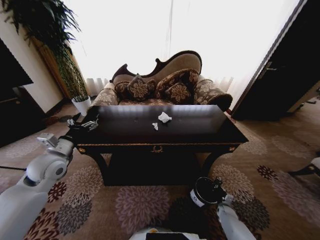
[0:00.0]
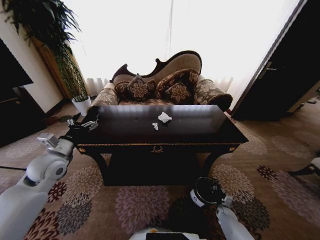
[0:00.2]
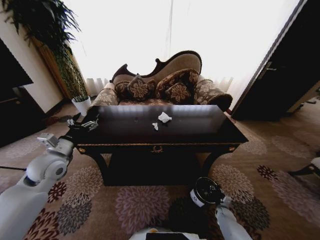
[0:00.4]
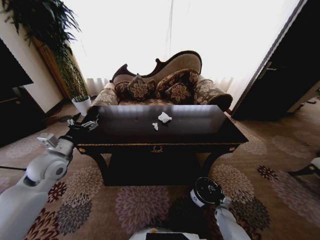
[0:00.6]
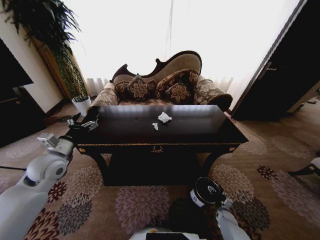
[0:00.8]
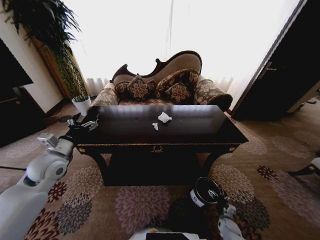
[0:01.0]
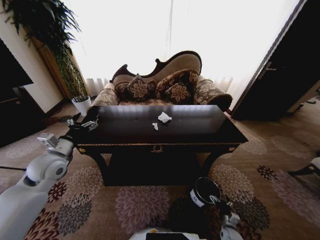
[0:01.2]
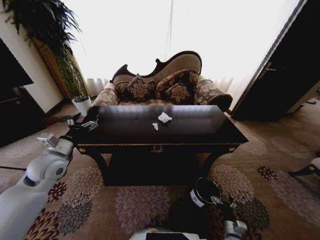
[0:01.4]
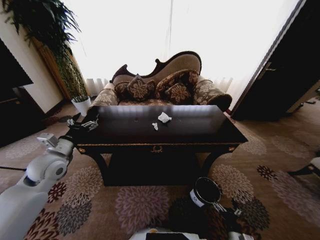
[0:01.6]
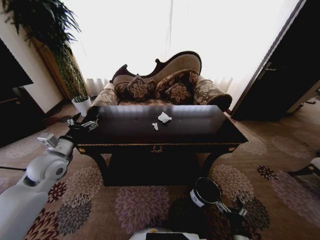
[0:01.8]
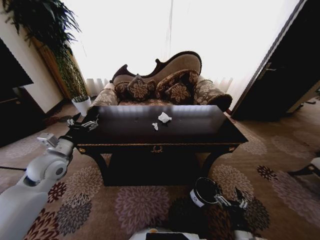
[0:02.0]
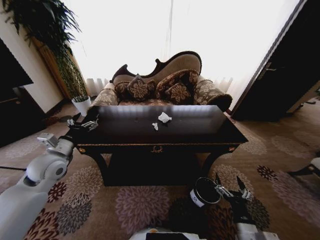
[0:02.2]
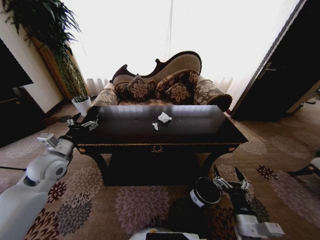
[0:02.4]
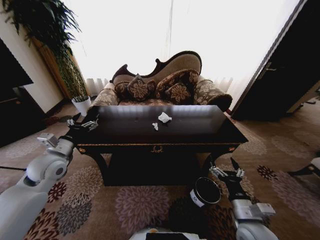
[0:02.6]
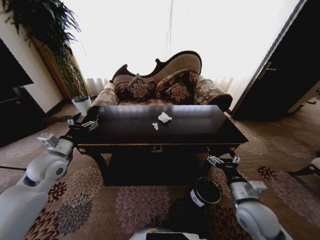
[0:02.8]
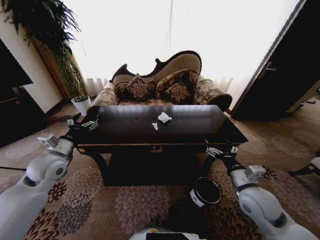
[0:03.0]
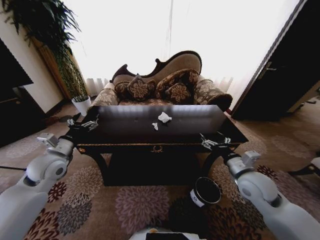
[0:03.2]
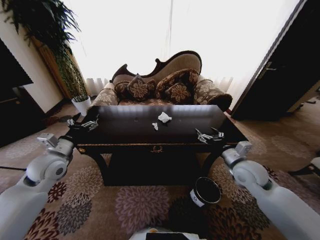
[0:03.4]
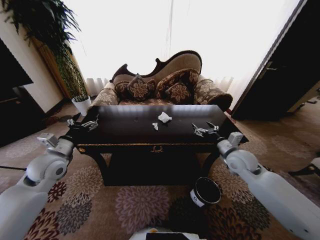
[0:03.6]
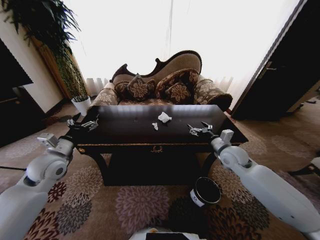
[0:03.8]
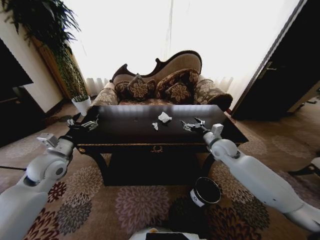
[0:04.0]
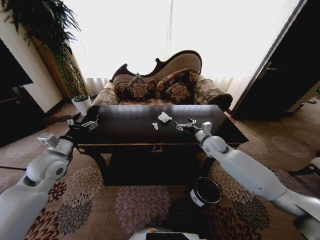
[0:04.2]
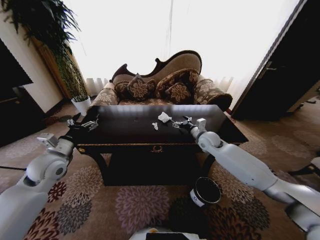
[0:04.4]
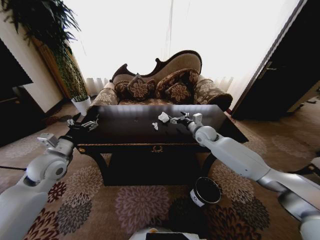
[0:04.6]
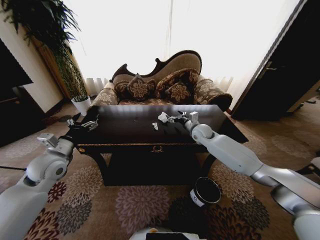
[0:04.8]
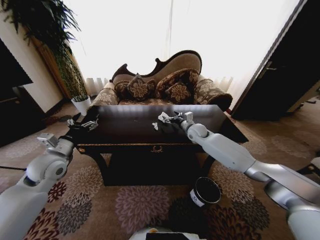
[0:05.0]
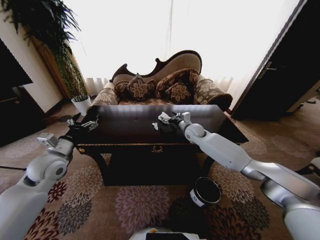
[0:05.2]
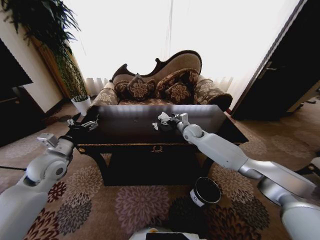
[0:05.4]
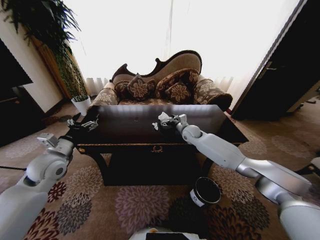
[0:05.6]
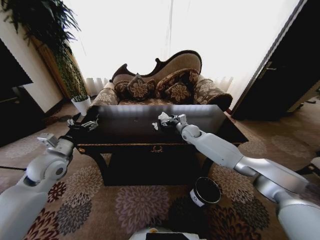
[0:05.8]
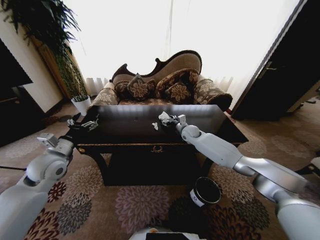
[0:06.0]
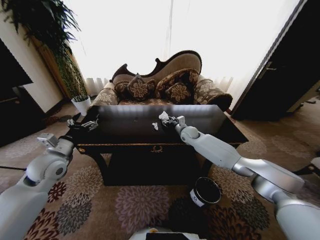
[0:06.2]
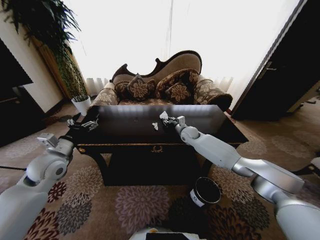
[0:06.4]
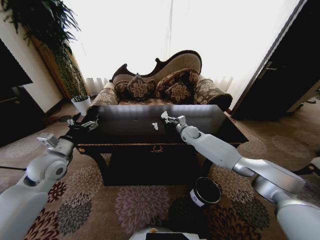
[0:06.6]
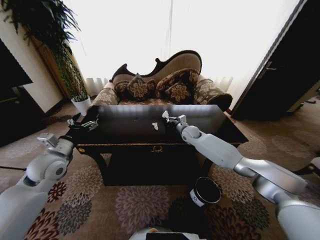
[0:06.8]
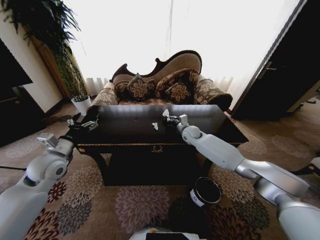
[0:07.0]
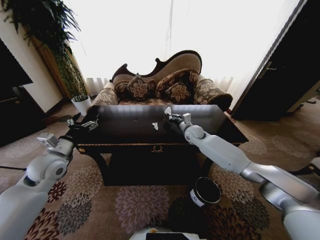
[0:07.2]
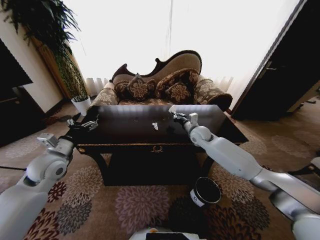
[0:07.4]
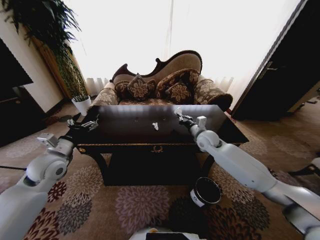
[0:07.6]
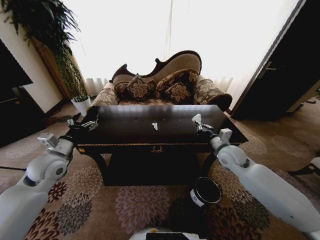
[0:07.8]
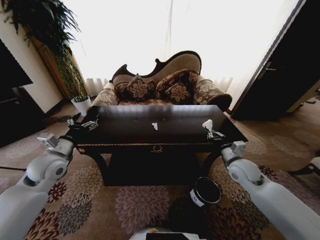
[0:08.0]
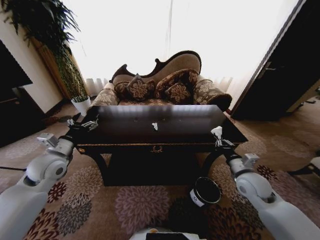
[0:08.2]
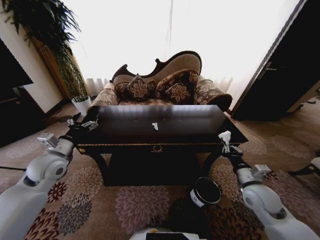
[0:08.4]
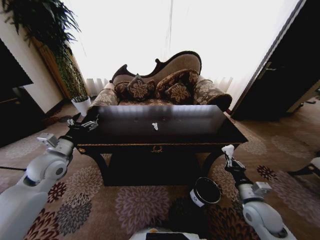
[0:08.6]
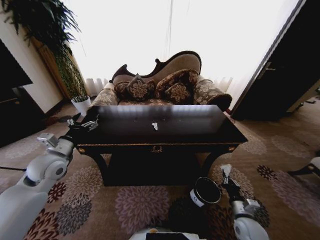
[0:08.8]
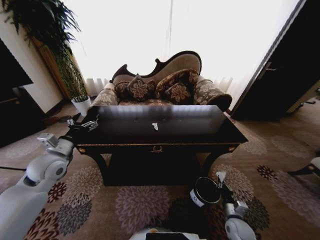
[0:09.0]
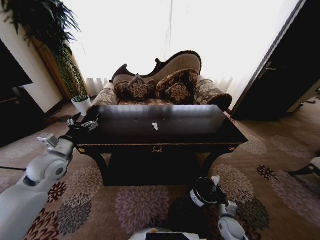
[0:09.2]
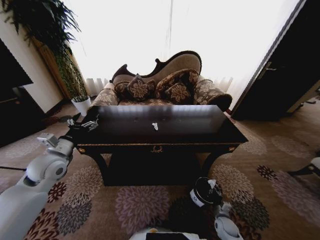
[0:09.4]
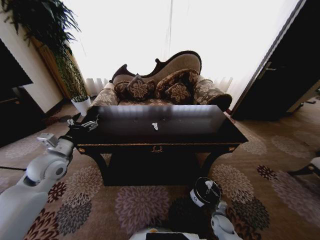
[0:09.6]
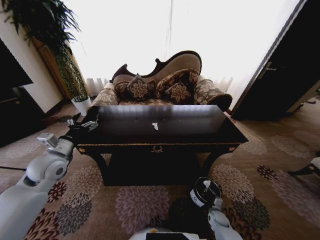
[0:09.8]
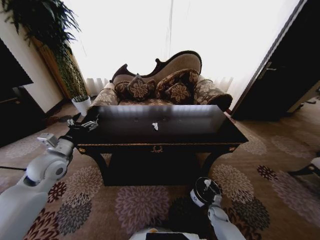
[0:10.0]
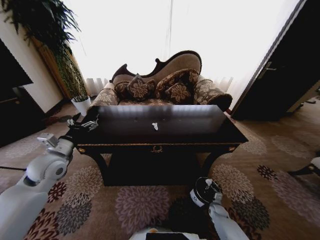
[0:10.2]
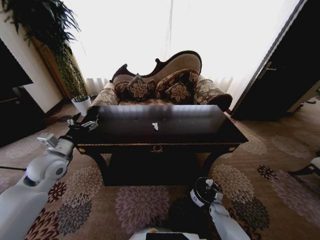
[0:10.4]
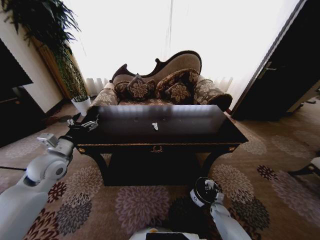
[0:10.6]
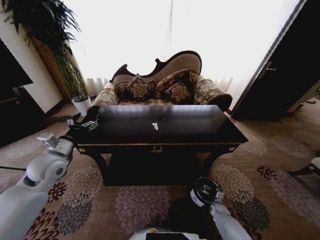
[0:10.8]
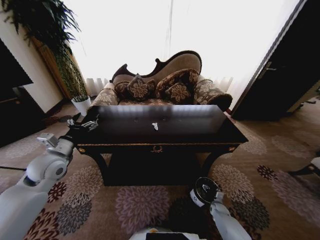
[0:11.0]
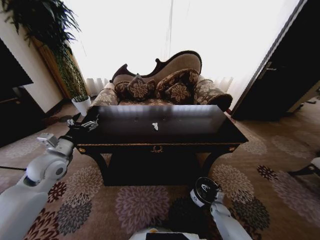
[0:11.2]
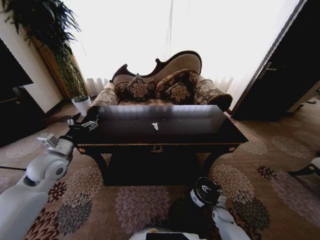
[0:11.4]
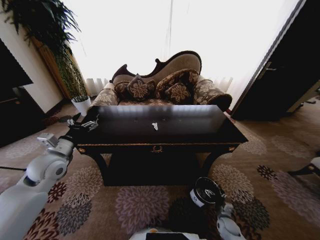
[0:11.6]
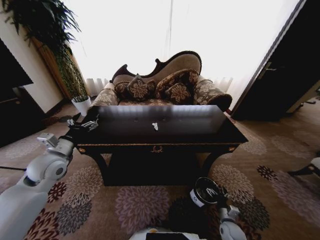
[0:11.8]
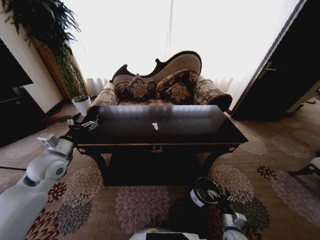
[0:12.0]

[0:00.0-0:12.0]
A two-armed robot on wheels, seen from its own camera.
Task of the whole recording: Move to the front of the table and place the trash on the table into the trash bin.
0:00.0 to 0:01.6: The right gripper heads backward, upward and to the left, covering some 25 cm, and opens up.
0:01.6 to 0:03.0: The right gripper shifts roughly 35 cm upward and forward.
0:03.0 to 0:04.4: The right gripper goes approximately 25 cm forward.
0:04.4 to 0:06.0: The right gripper is displaced forward and to the left by approximately 10 cm.
0:06.0 to 0:07.6: The right gripper moves backward, some 10 cm, and closes up.
0:07.6 to 0:09.0: The right gripper moves backward and downward, some 40 cm.
0:09.0 to 0:10.4: The right gripper travels downward and forward by some 20 cm.
0:10.4 to 0:12.0: The right gripper moves backward and upward, roughly 20 cm, and opens.

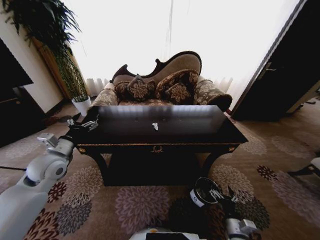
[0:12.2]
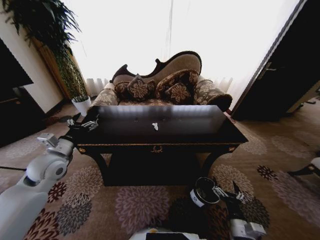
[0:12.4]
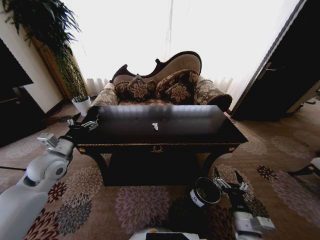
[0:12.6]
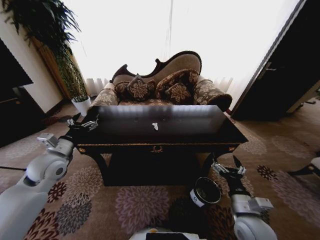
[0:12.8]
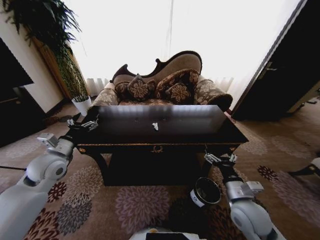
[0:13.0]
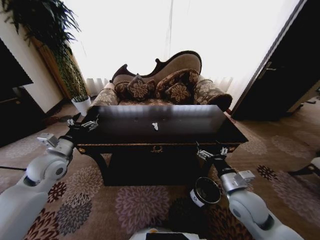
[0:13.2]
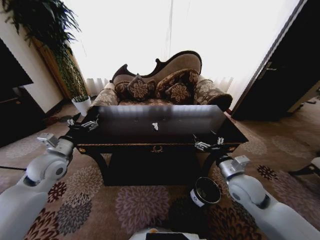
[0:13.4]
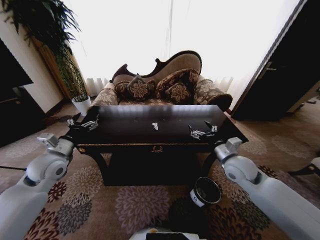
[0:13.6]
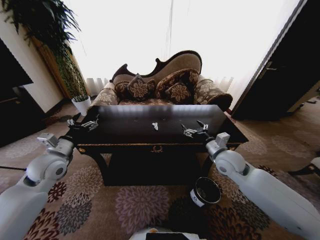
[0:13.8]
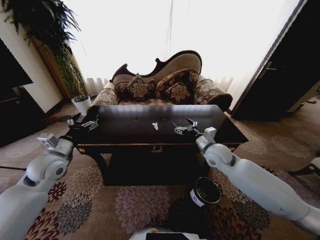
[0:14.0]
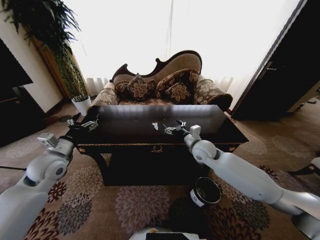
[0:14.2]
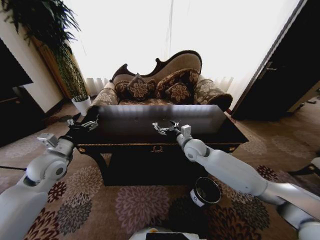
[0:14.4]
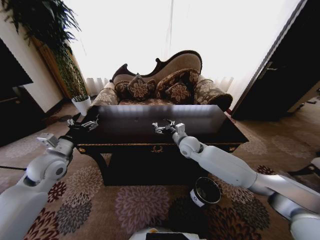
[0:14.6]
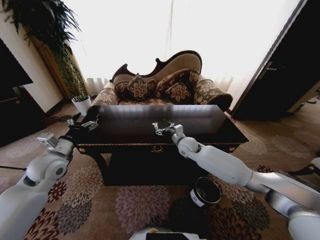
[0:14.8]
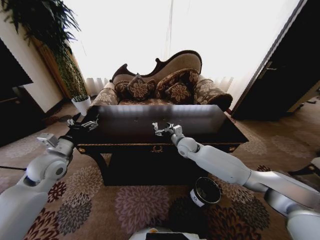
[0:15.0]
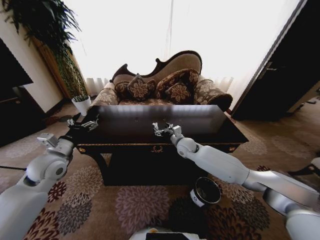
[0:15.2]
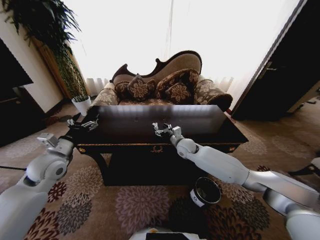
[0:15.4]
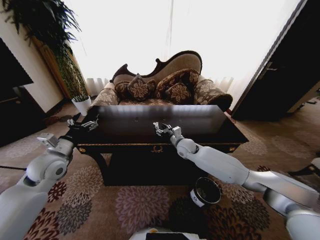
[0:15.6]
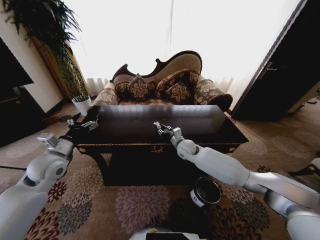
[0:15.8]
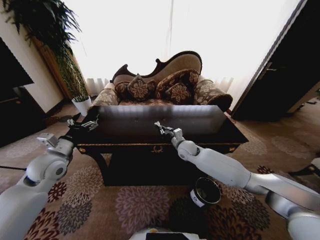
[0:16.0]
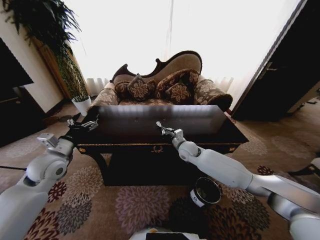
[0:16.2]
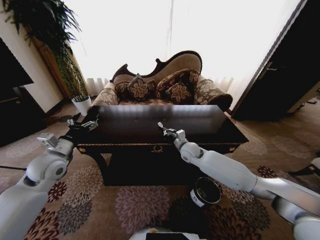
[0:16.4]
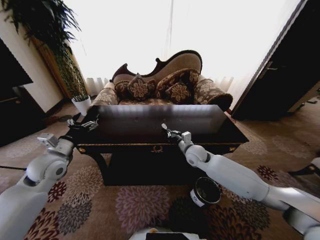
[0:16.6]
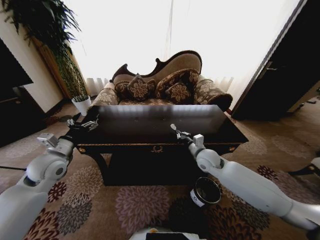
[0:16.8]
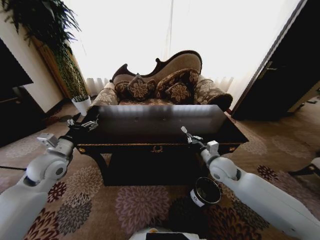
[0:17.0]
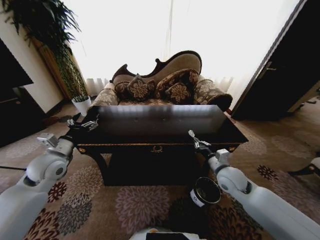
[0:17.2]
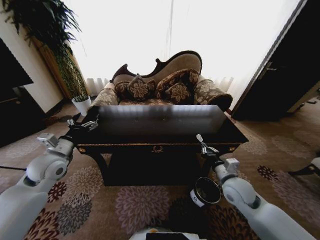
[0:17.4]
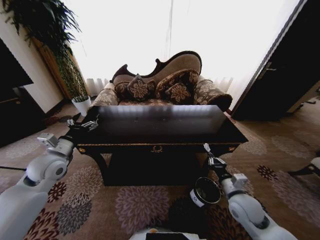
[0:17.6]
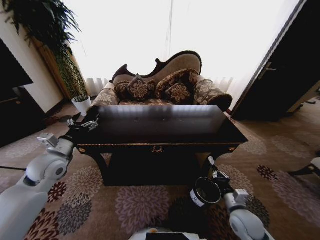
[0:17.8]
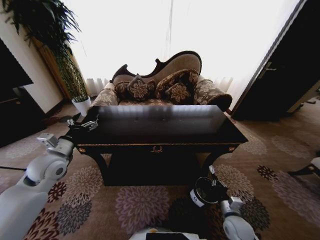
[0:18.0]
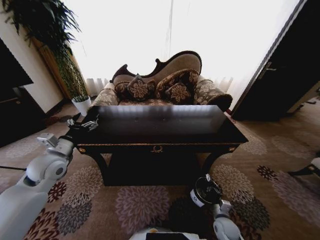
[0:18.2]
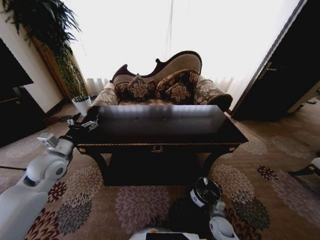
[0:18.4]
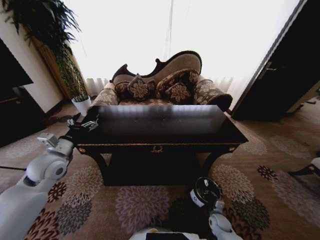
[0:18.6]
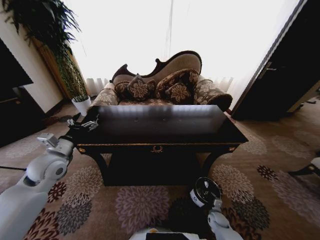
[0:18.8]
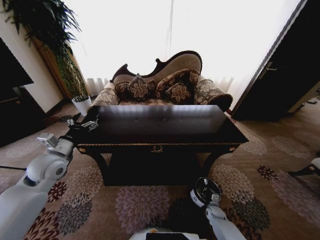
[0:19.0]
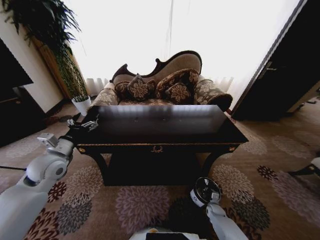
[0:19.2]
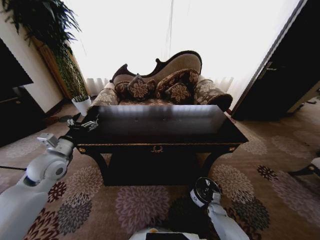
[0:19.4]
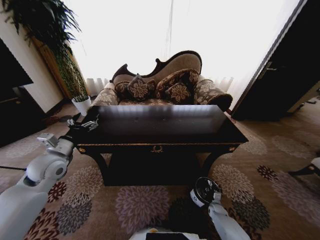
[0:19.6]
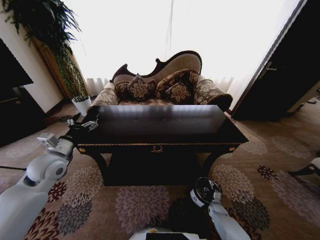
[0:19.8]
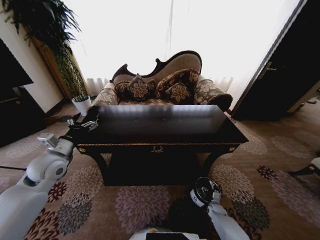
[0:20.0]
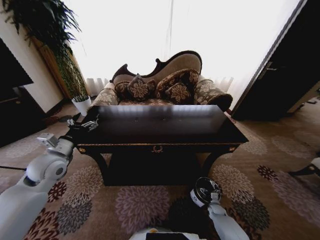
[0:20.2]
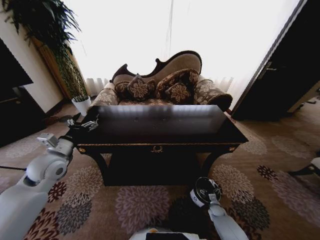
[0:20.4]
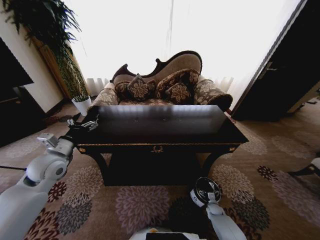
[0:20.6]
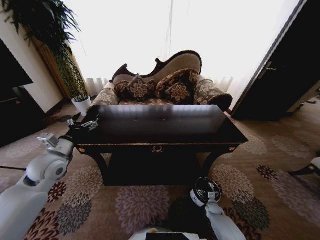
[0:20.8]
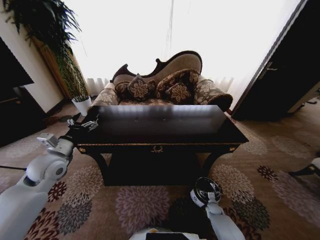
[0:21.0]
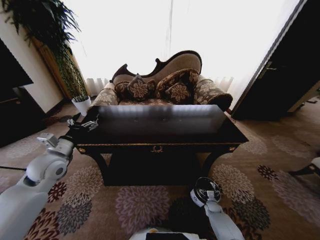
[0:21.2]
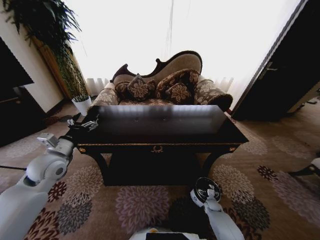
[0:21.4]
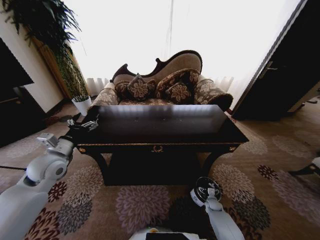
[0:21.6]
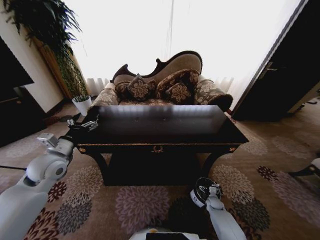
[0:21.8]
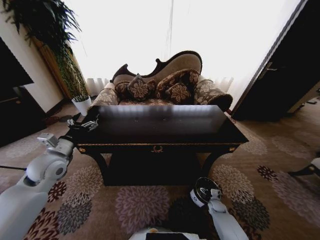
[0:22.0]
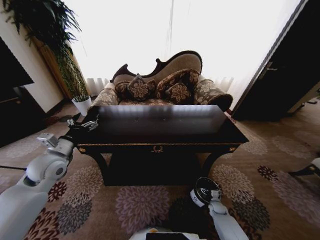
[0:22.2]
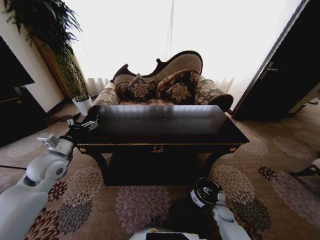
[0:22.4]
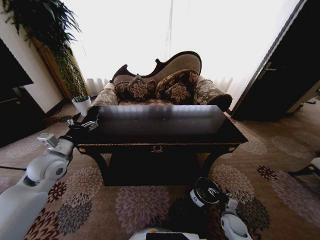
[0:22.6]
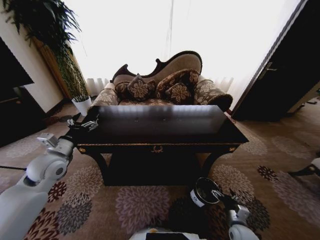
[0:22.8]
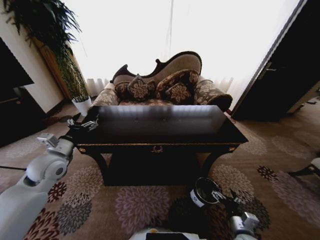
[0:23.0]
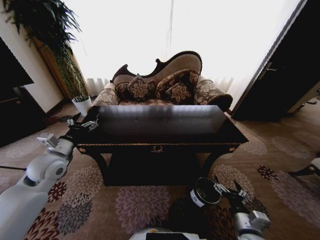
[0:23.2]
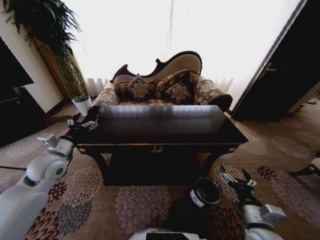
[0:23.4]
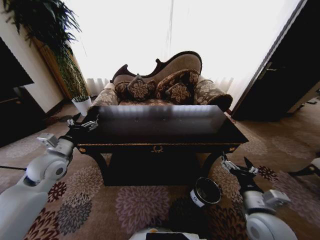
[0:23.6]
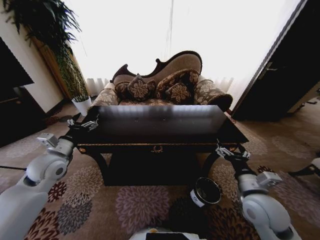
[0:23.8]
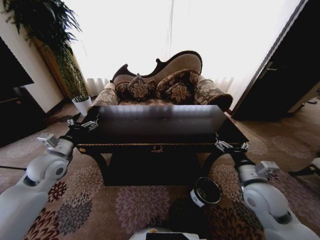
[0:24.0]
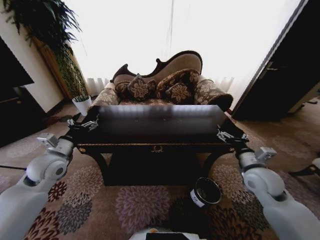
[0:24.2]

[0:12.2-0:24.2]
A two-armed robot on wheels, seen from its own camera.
Task of the whole recording: Move to the front of the table and place the trash on the table into the trash bin.
0:12.2 to 0:13.8: The right gripper moves forward and upward, about 35 cm.
0:13.8 to 0:15.2: The right gripper goes approximately 20 cm to the left, forward and downward.
0:15.2 to 0:16.6: The right gripper shifts by some 5 cm, and closes up.
0:16.6 to 0:18.2: The right gripper heads downward, backward and to the right, covering some 40 cm.
0:18.2 to 0:19.8: The right gripper moves downward, forward and to the right, some 15 cm, and opens.
0:19.8 to 0:21.2: The right gripper opens.
0:21.2 to 0:22.6: The right gripper heads upward and backward, covering about 15 cm.
0:22.6 to 0:24.2: The right gripper travels upward by some 35 cm.
